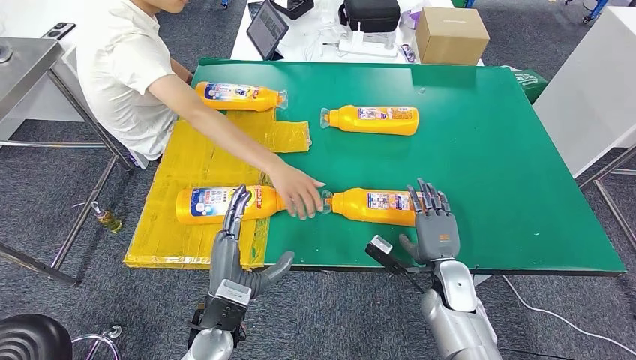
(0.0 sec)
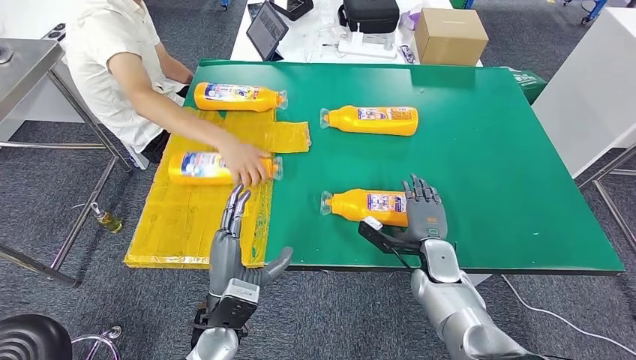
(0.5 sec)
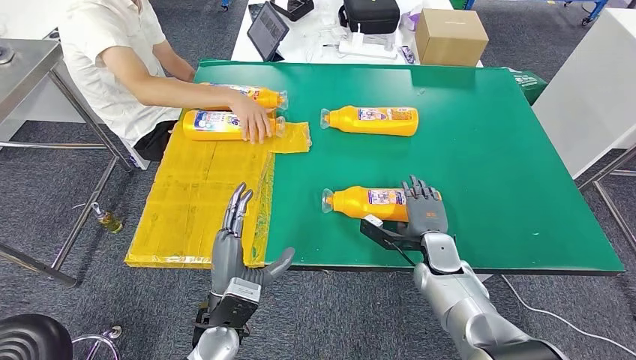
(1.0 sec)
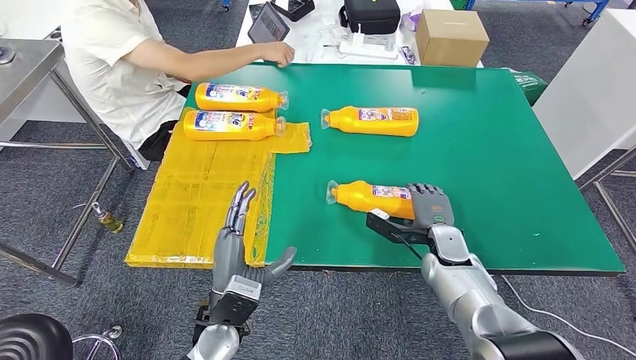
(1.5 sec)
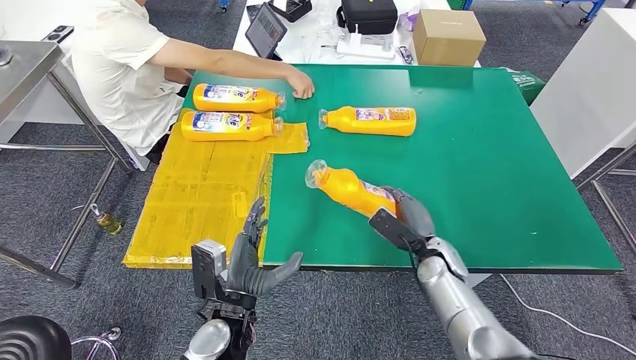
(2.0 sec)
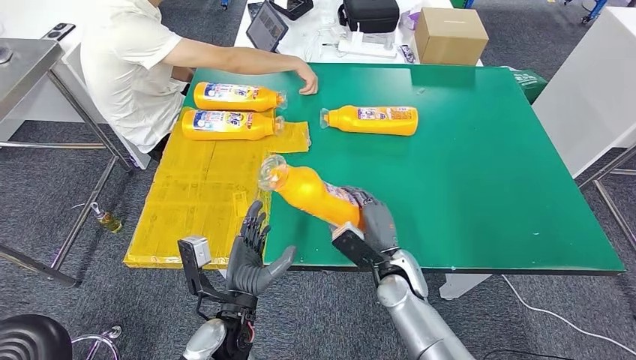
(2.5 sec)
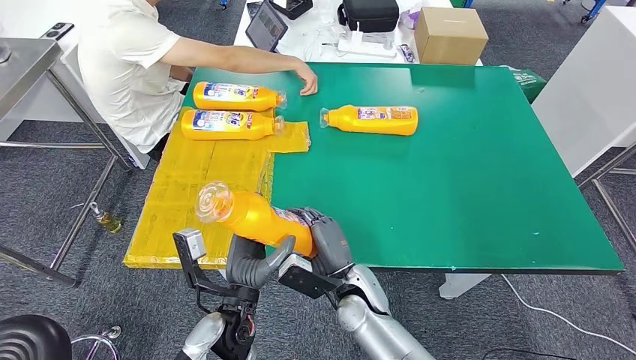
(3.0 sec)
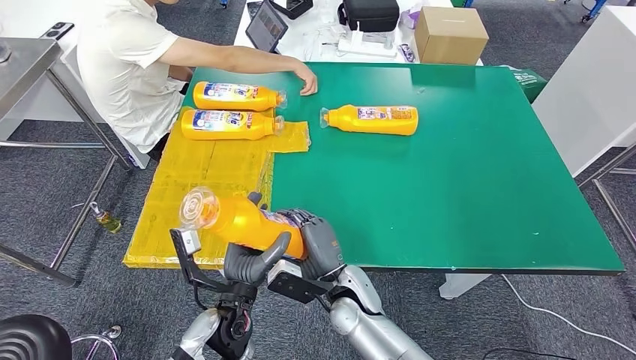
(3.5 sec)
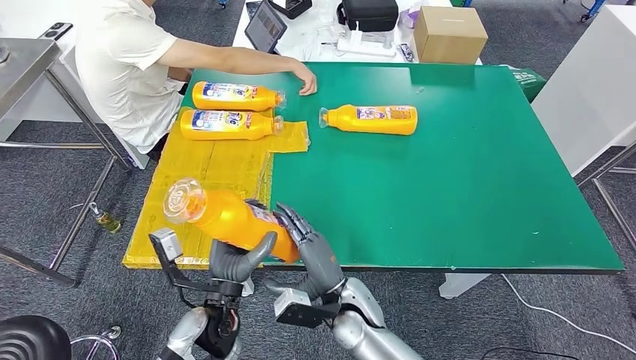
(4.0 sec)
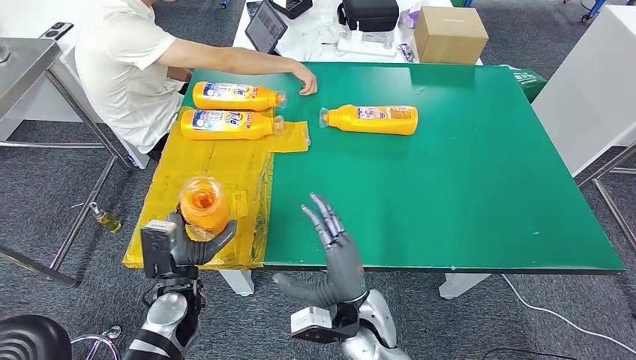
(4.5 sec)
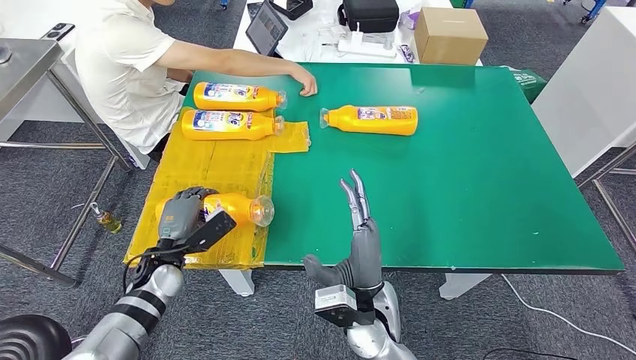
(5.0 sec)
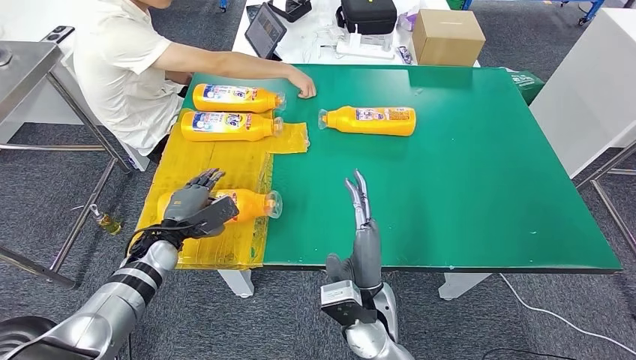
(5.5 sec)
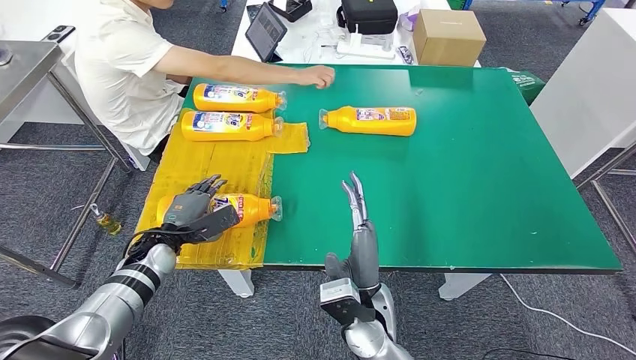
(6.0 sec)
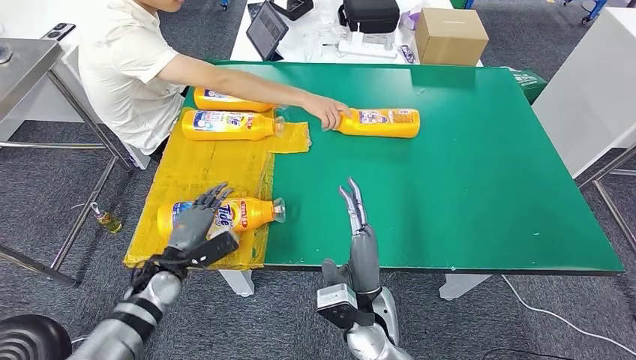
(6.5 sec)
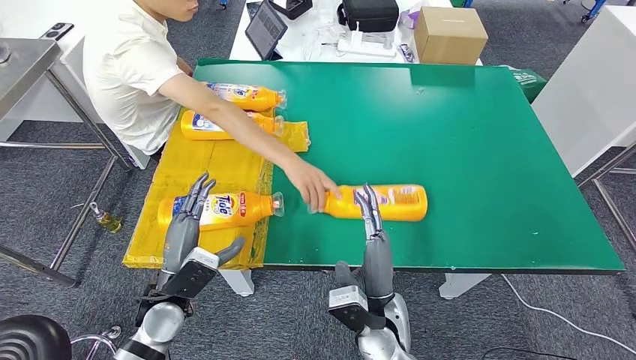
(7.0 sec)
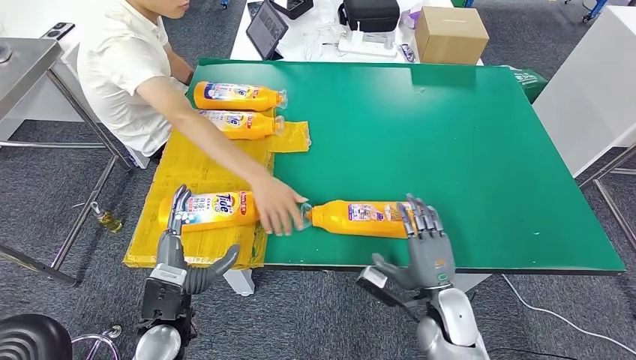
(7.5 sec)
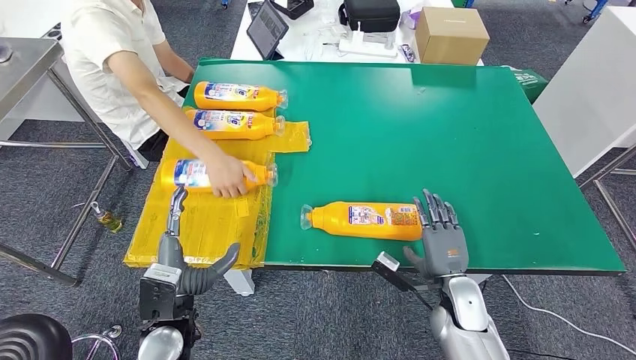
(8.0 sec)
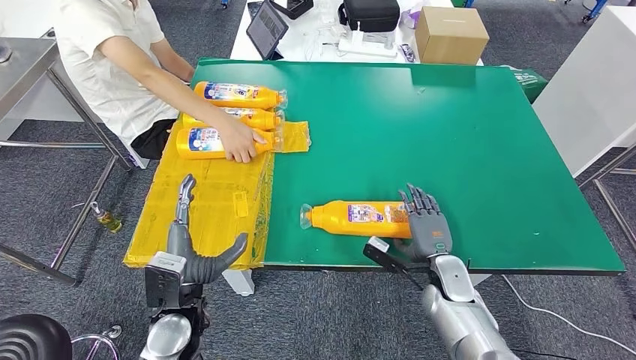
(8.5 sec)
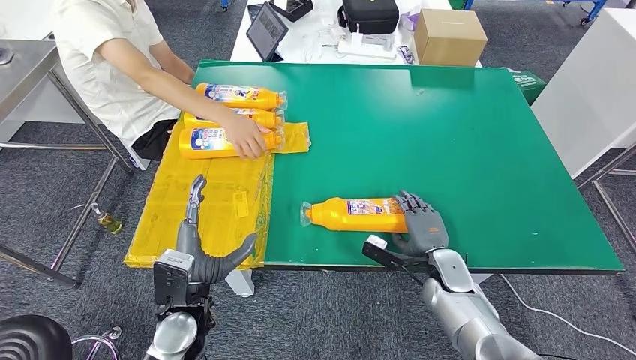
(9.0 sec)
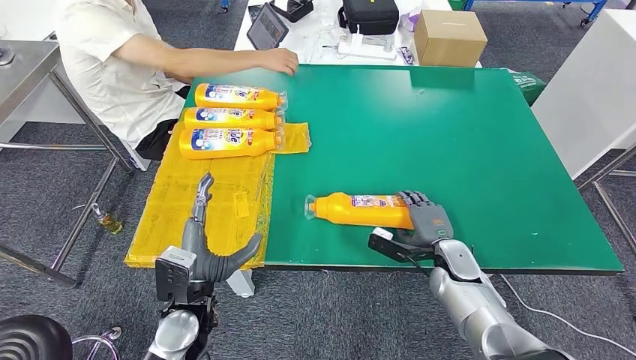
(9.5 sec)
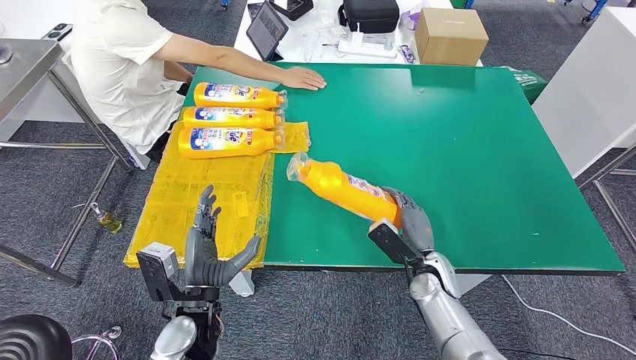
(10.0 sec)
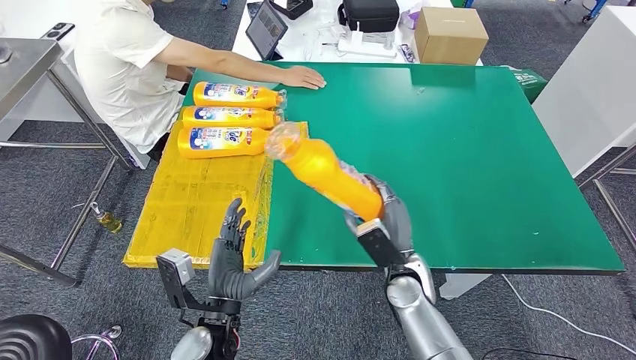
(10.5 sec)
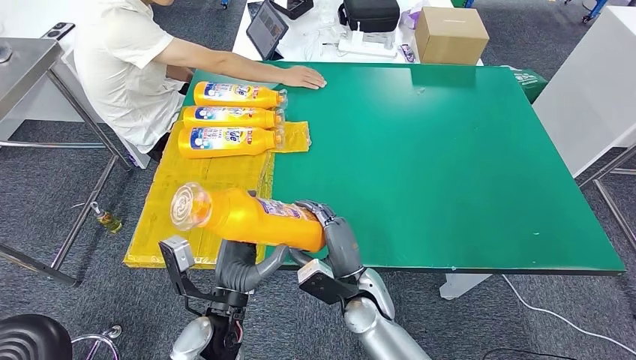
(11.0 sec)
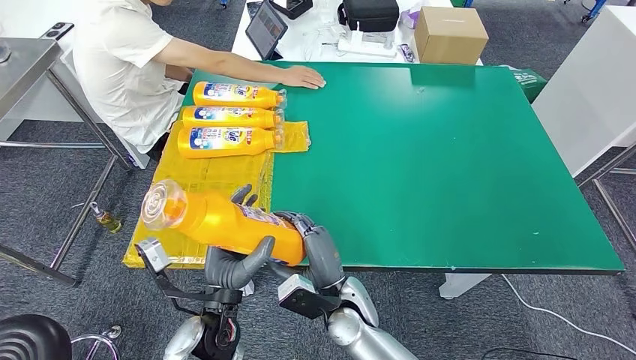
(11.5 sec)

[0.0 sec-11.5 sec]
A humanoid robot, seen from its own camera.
Step, 0.5 sec to 3.0 sec: Pick up the fast-moving consumer goods bottle from the table.
Step, 3.5 sec to 6.0 sec: Flip the fast-moving consumer goods bottle to the front side.
4.0 sec to 6.0 sec: The left hand is displaced to the left and forward by about 20 cm. The right hand ends up roughly 5 cm from where it was.

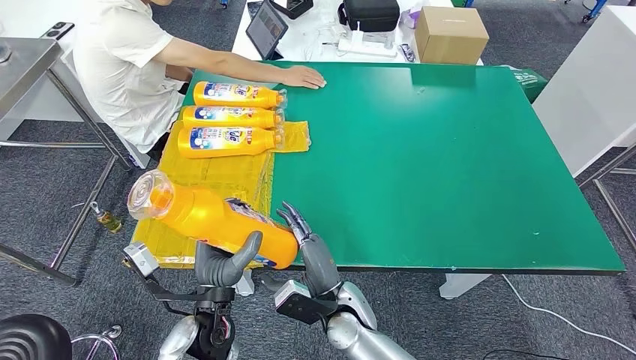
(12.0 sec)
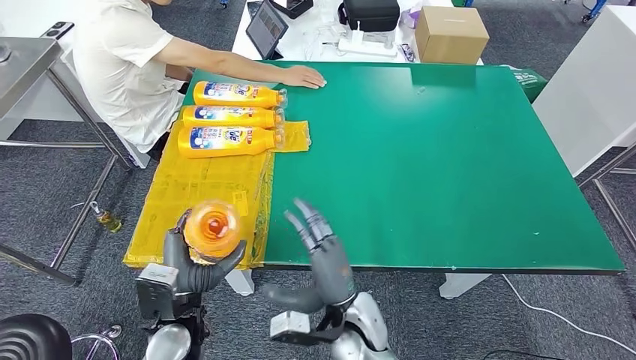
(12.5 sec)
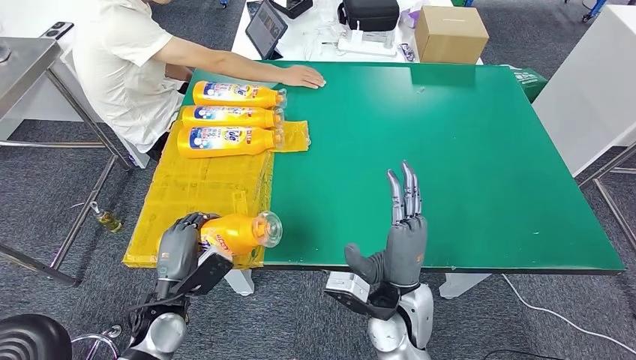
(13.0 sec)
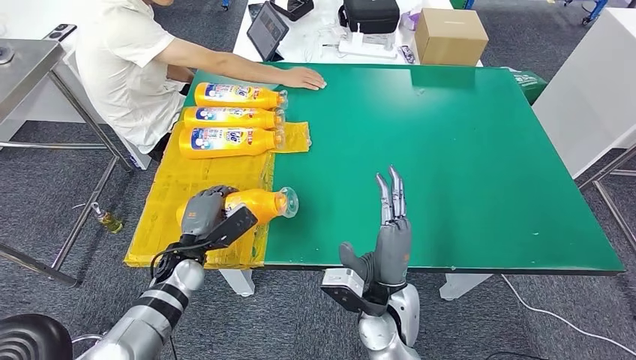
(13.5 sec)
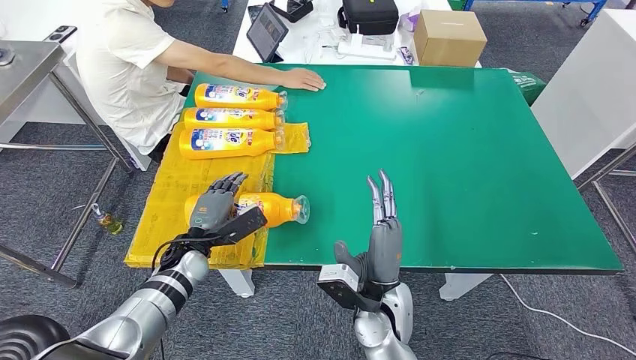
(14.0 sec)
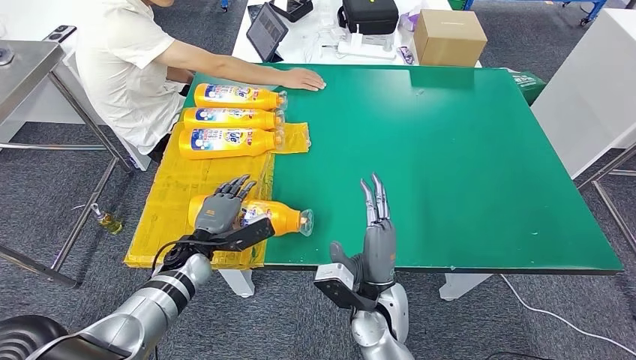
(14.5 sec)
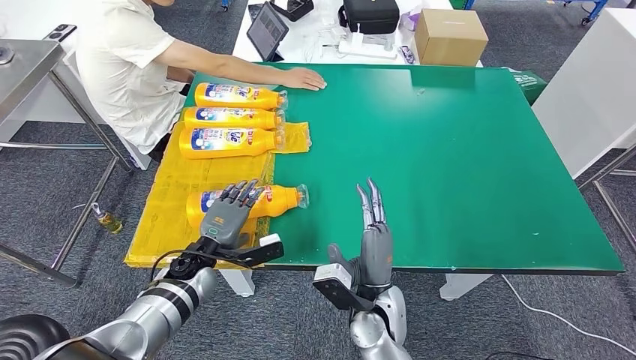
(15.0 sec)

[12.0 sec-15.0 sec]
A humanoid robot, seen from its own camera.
Step, 12.0 sec to 15.0 sec: Flip the fast-moving consumer goods bottle to the front side.
12.0 sec to 13.5 sec: The left hand heads forward, to the left and downward, covering roughly 15 cm. The right hand travels upward and to the right by about 10 cm.
